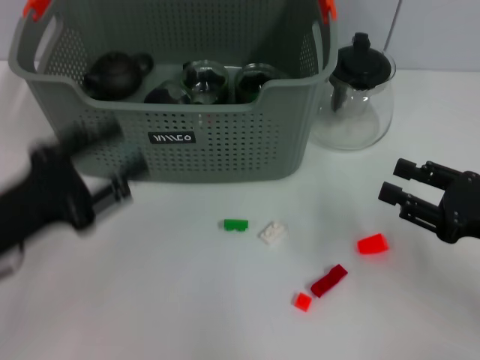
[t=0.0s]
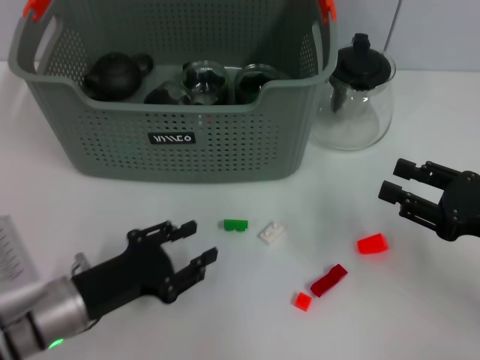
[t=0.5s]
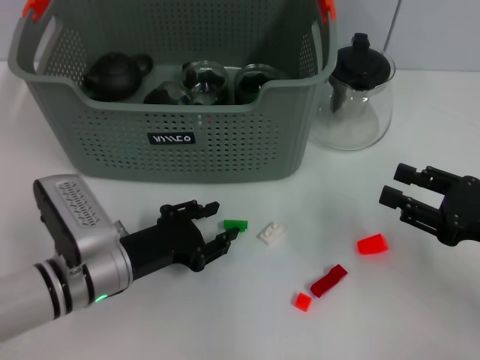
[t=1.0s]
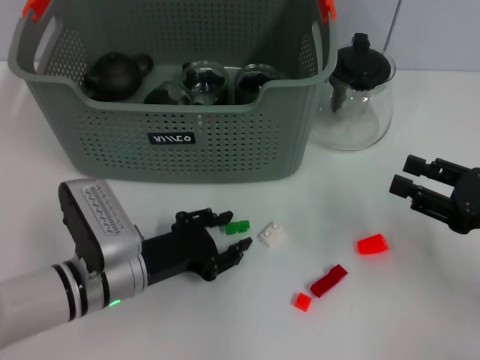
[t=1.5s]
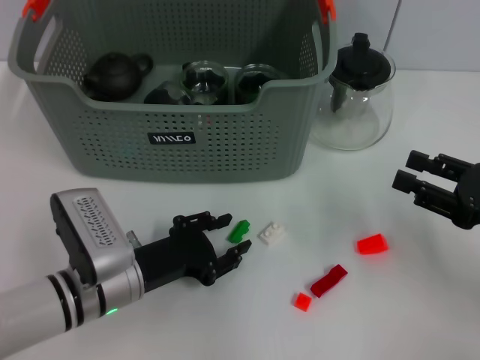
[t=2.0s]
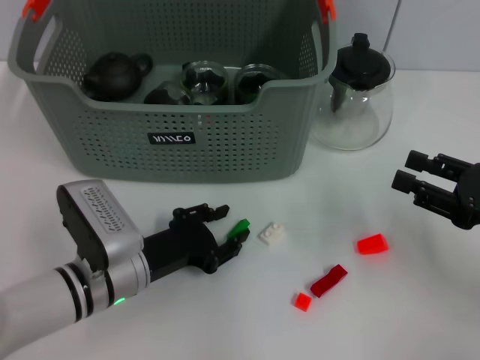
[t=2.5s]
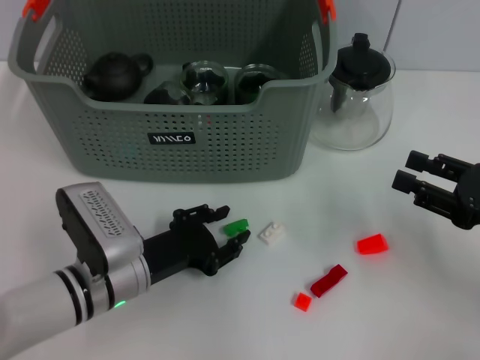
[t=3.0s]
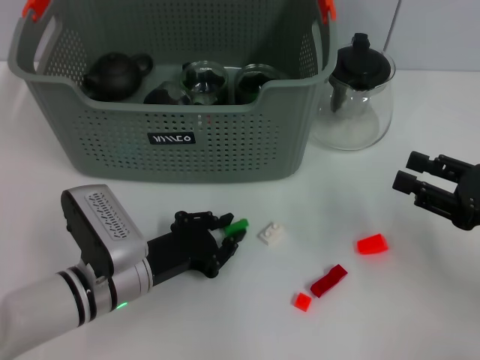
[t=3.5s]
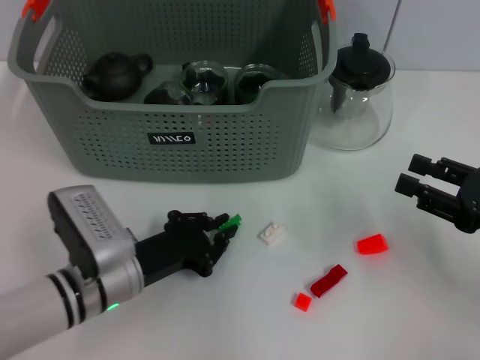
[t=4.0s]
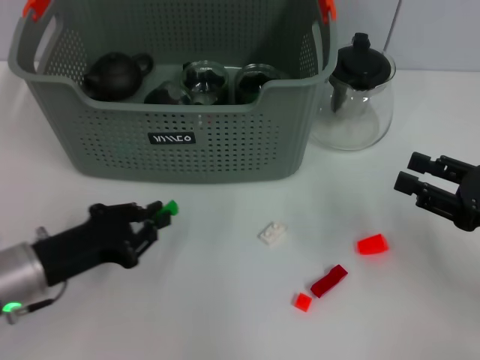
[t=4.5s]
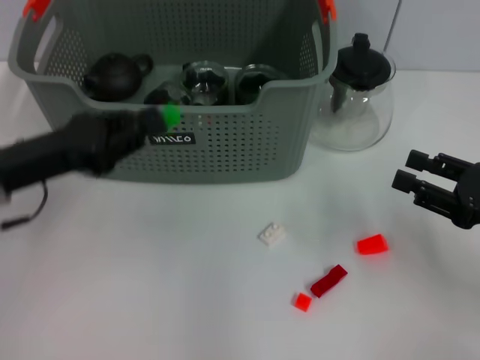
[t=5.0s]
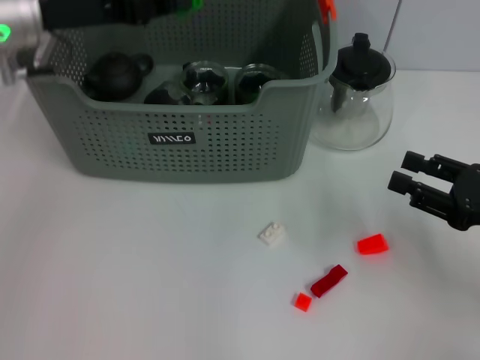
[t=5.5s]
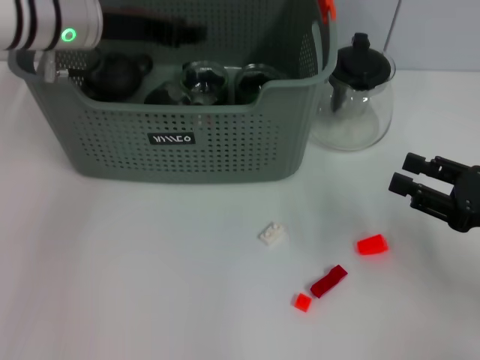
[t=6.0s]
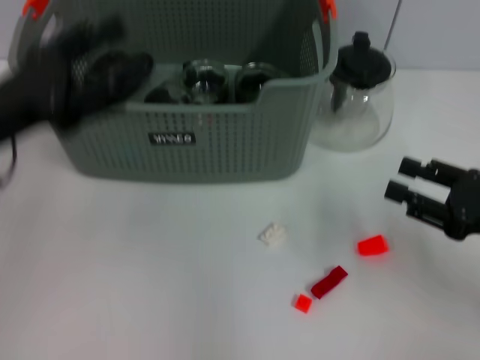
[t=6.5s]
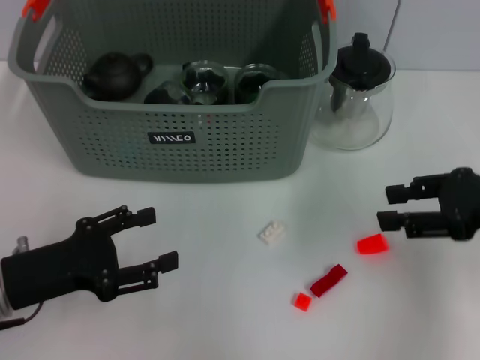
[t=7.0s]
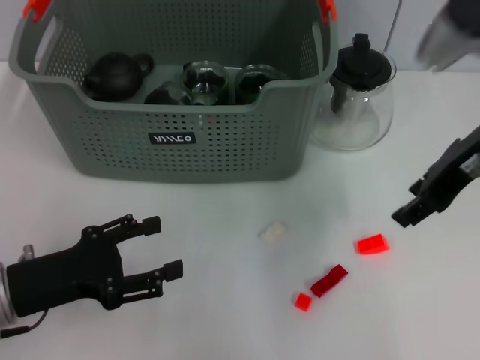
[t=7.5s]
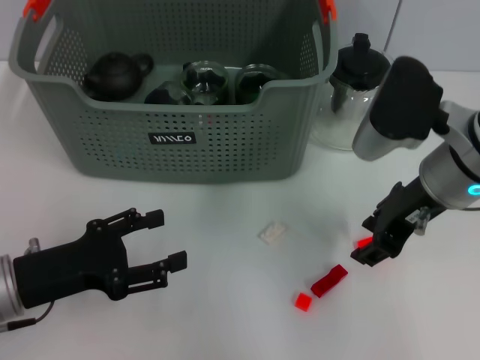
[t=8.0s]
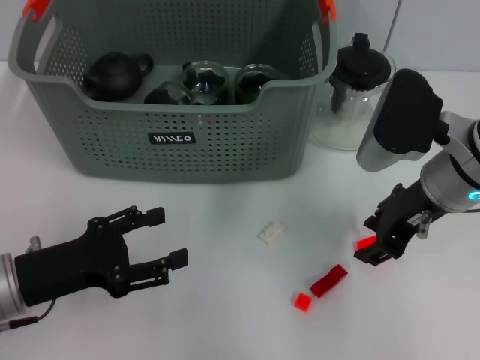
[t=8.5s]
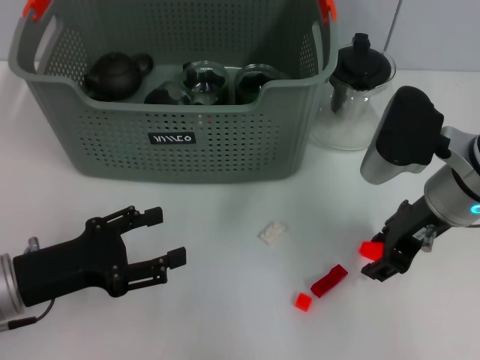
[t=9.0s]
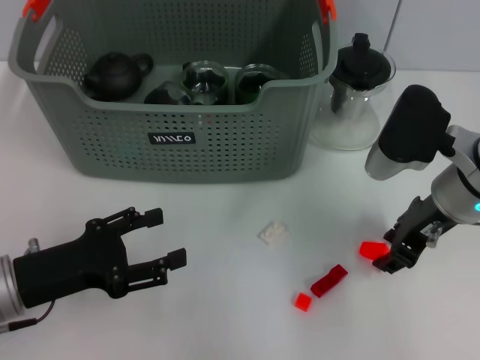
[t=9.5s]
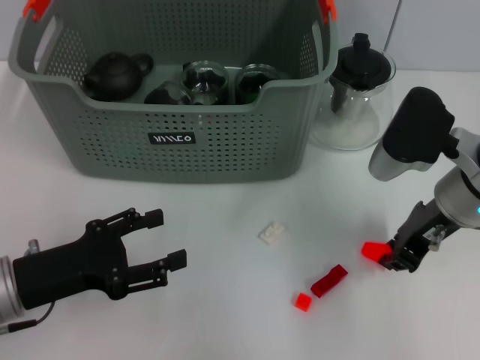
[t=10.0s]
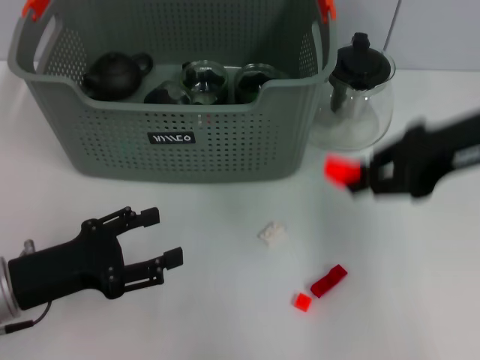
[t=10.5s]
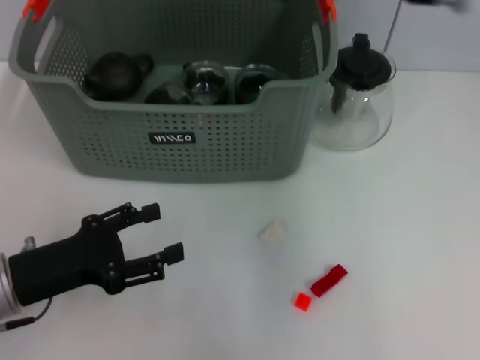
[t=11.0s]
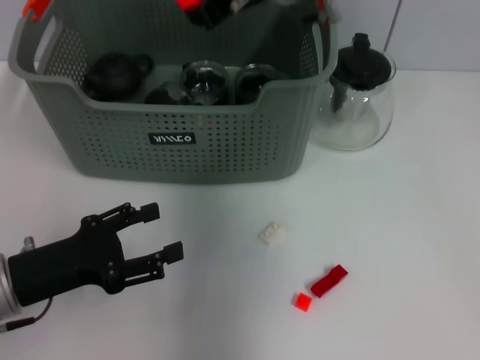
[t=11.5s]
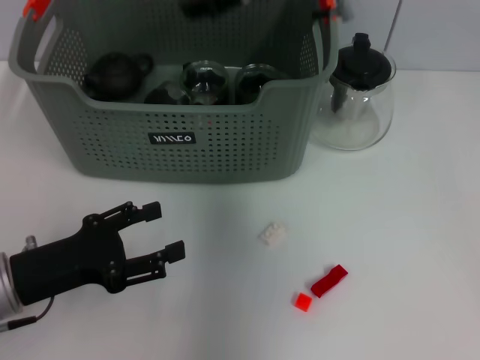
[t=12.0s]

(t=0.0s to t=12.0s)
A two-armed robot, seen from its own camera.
Task of the whole recording: pick up the teacup on the table and place it into the storage bin, pick up the block on the table and place it into the storage bin.
Step, t=0.0s - t=4.0s: Grasp the green block with left gripper.
Step, t=4.5s - t=6.0s: Place the green block in the storage box with left gripper.
Step, t=6.5s - t=9.5s: Grasp the orange block with right gripper.
t=0.0s - t=2.0s: The left gripper shifts approximately 15 cm to the right and downward.
t=2.0s - t=4.0s: The left gripper closes its fingers.
t=4.0s - t=6.0s: The left gripper moves upward and forward, about 25 cm.
t=6.0s - t=8.0s: The right gripper travels to the left, upward and forward by approximately 20 cm, while the left gripper heads backward and downward, covering roughly 25 cm, and opens up.
t=8.0s - t=10.0s: The grippers make only small movements.
t=10.0s - t=12.0s: The right gripper is displaced to the left, upward and forward by some 20 cm.

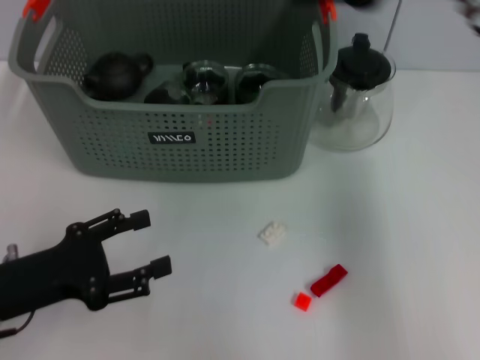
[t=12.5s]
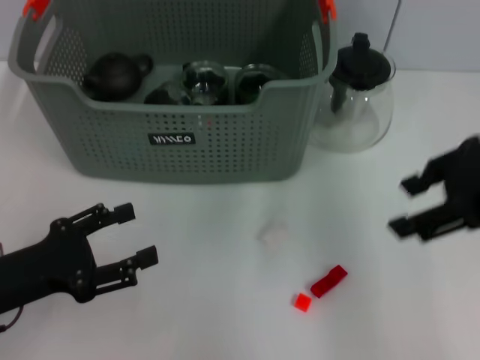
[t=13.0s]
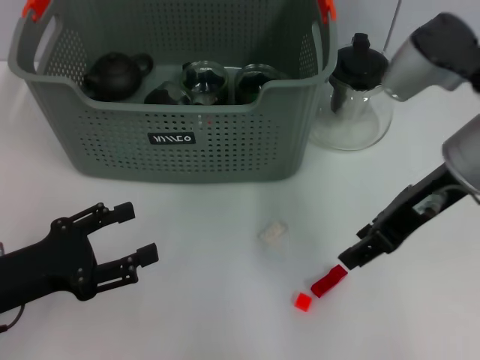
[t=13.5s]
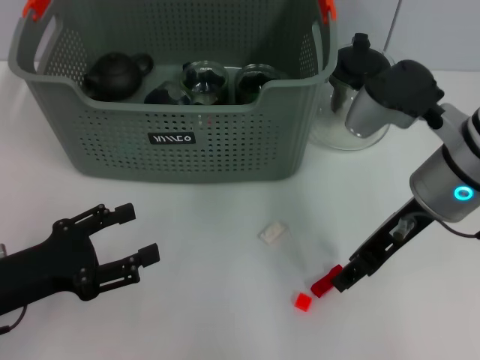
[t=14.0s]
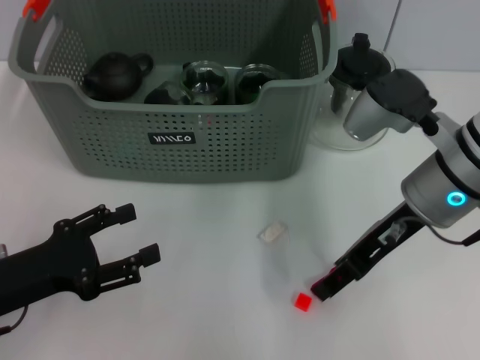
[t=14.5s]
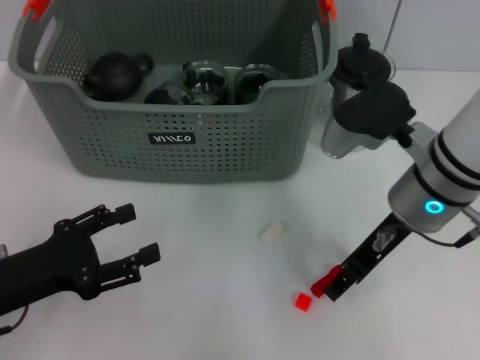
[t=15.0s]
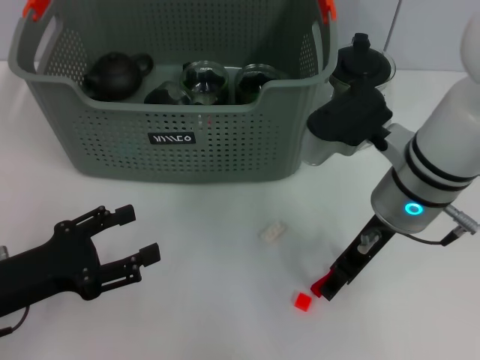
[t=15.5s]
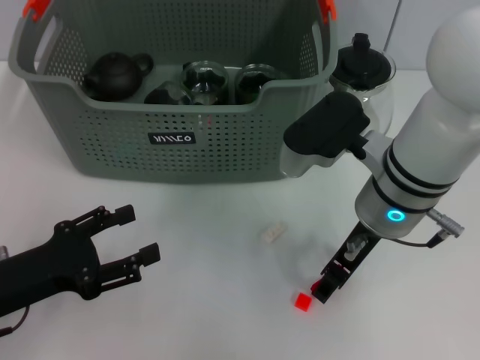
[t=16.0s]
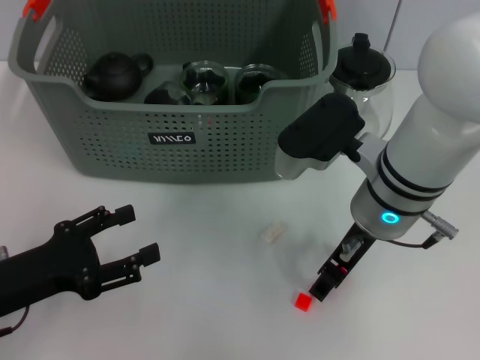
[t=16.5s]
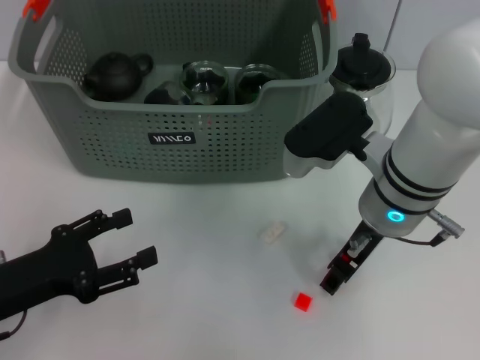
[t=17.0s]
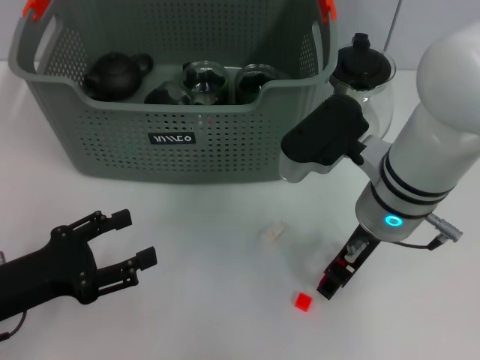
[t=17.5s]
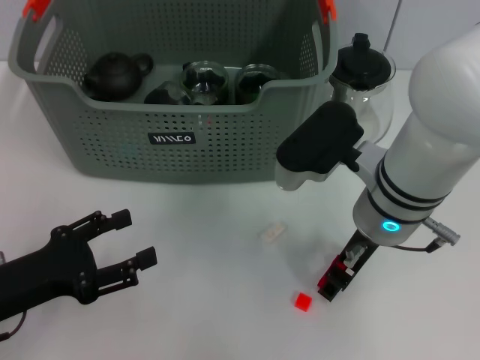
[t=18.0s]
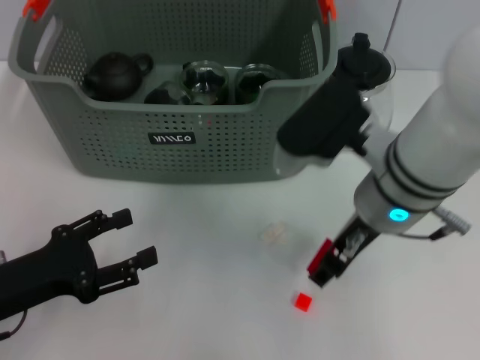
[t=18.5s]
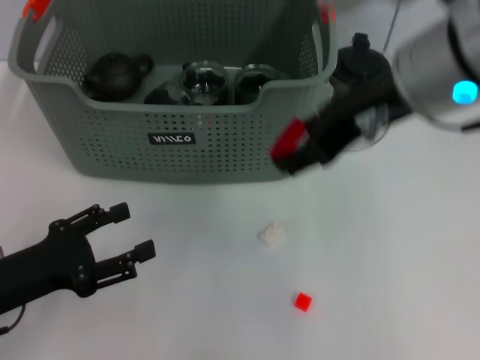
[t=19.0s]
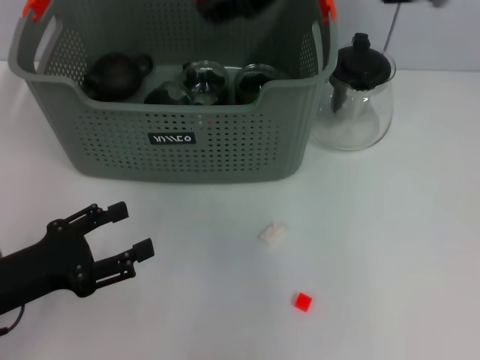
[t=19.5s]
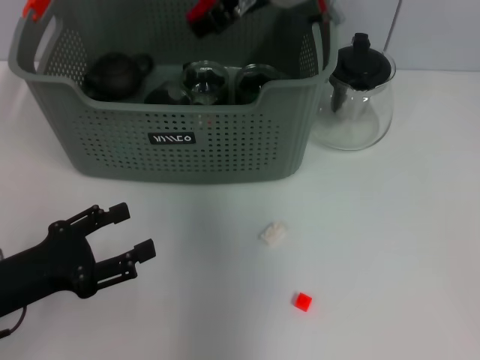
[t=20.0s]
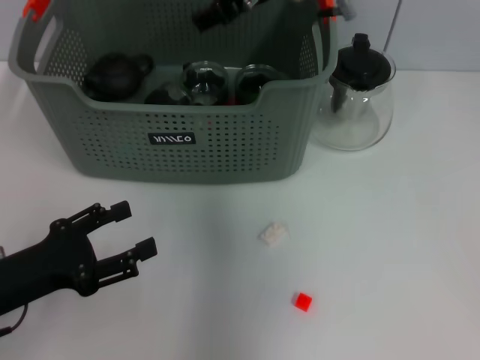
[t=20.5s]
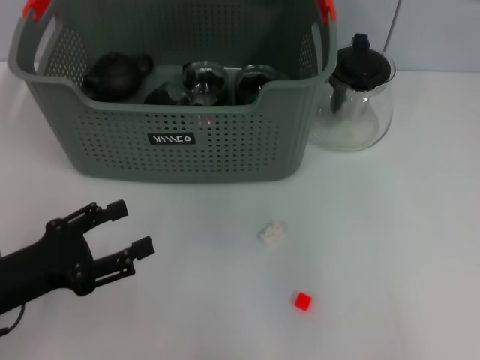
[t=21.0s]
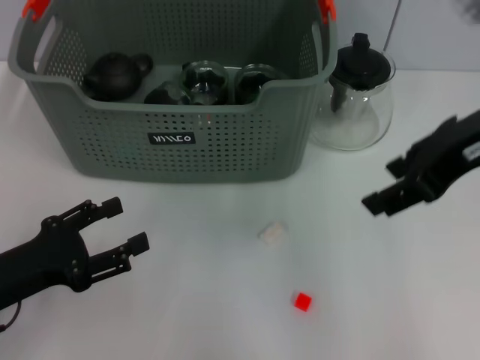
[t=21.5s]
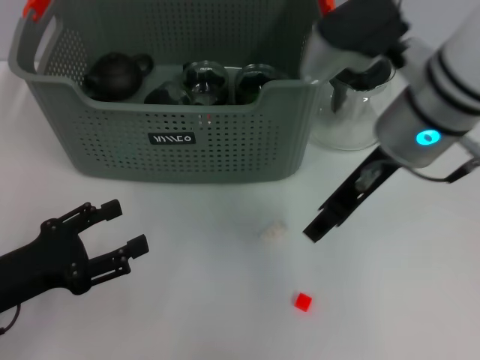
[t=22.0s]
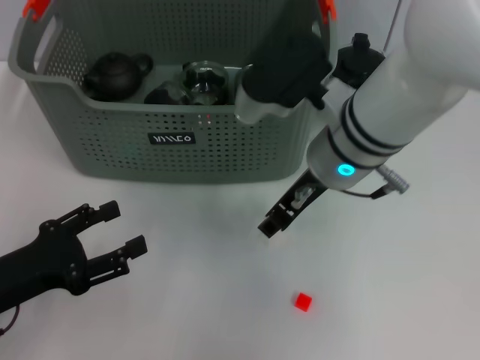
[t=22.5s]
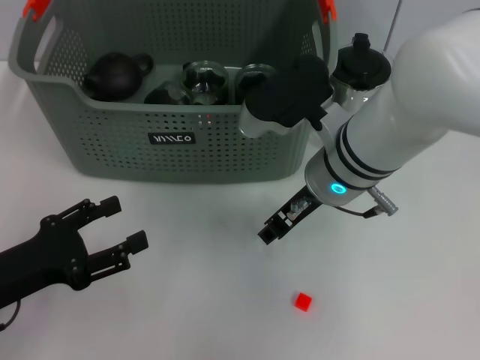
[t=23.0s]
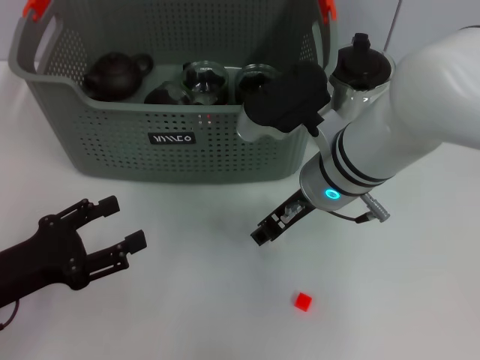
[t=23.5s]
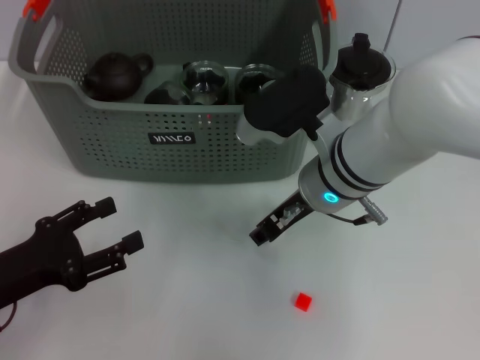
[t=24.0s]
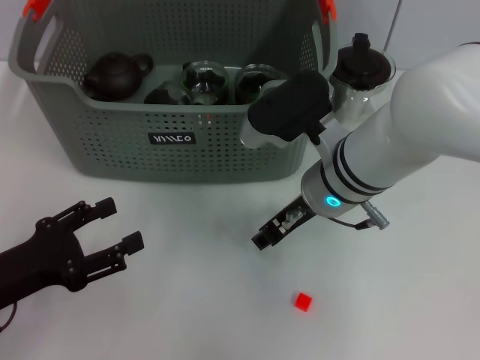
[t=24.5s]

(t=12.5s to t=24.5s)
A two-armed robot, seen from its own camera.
Task of the whole recording: pick up the teacup on the table and place it into the storage bin, pick up the block on the table and place it into the storage bin.
Step, t=13.0s - t=17.0s: Grasp the red block with right gripper.
Step, t=17.5s - t=21.0s: Place the red block in the storage box with right gripper.
Step, t=21.5s - t=23.5s: Grasp the white block with right gripper.
t=12.5s - t=14.5s: The right gripper goes approximately 15 cm downward.
t=14.5s - t=16.5s: The right gripper travels to the left by approximately 5 cm.
t=16.5s - t=18.5s: The grippers make only small movements.
t=18.5s - t=20.5s: The right gripper heads forward and upward, covering about 15 cm.
t=20.5s - t=22.5s: The right gripper shifts about 15 cm backward and downward.
t=22.5s - t=24.5s: The grippers make only small movements.

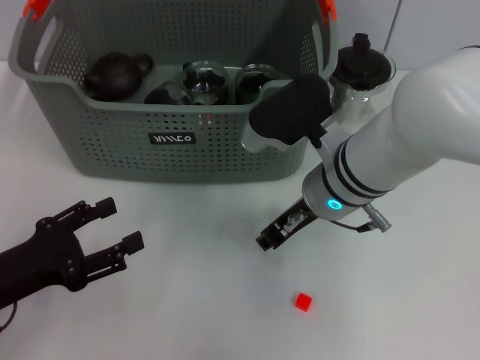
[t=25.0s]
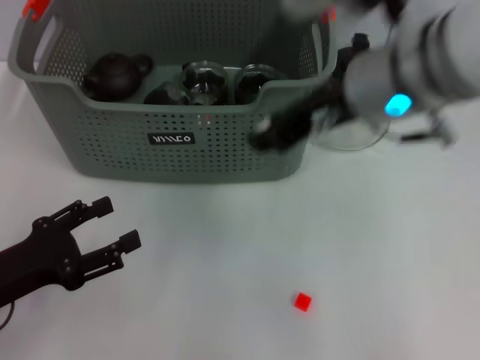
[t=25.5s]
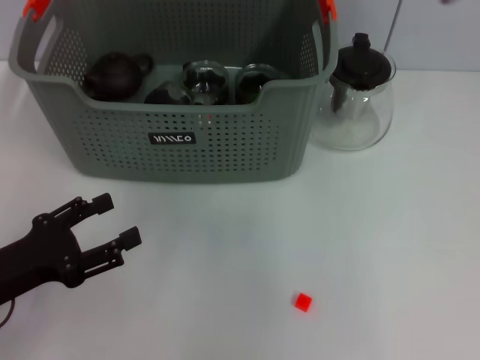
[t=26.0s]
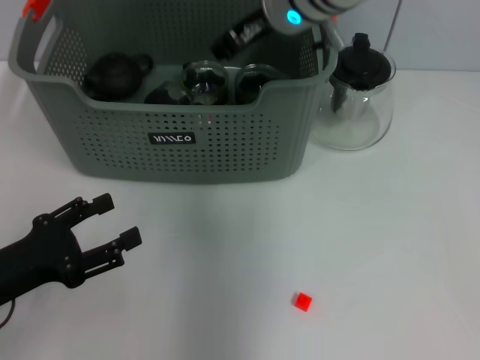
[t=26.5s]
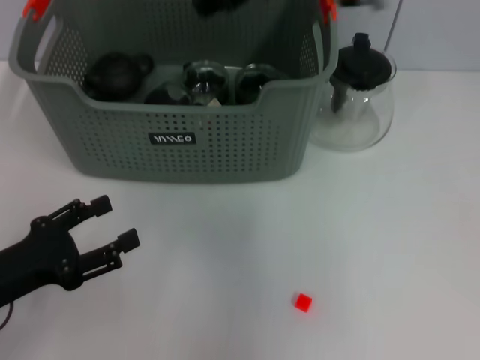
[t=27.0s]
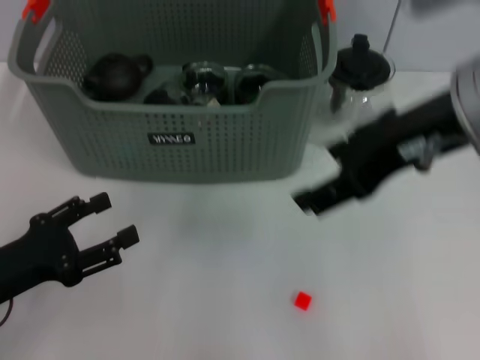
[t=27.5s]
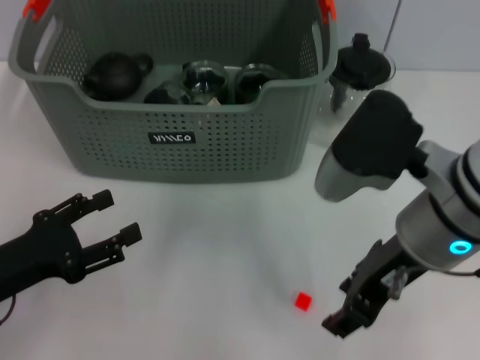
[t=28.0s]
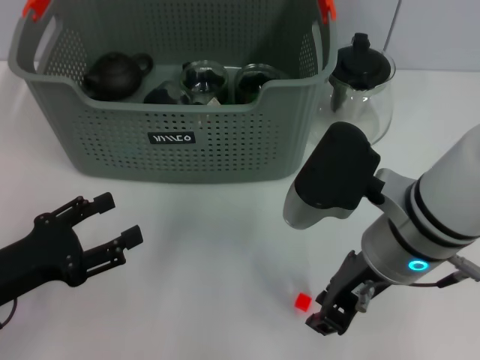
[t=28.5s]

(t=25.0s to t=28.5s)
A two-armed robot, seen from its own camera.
Task of the whole recording: pick up the teacup on the table and place it into the storage bin, pick up the block on the table and place it into the storage bin.
Step, t=25.0s - t=27.5s: Place the white block in the storage box with right gripper.
t=25.0s - t=27.0s: The right gripper moves up and down over about 20 cm, changing direction 2 times.
t=27.0s - t=28.5s: The right gripper travels downward and backward by about 20 cm, and opens, then closes again.
